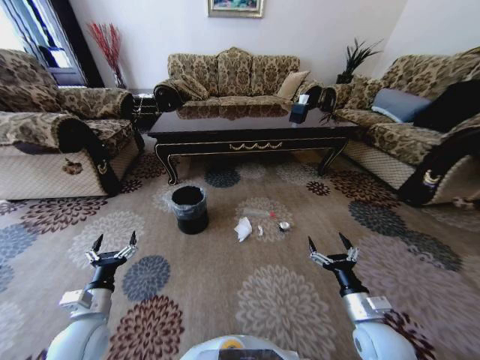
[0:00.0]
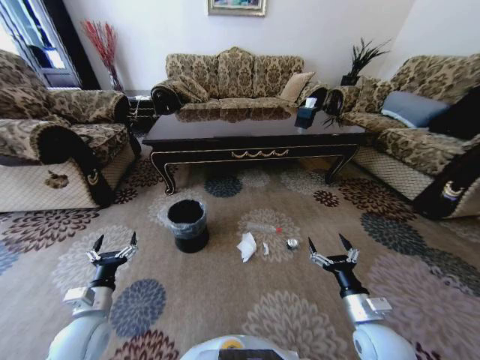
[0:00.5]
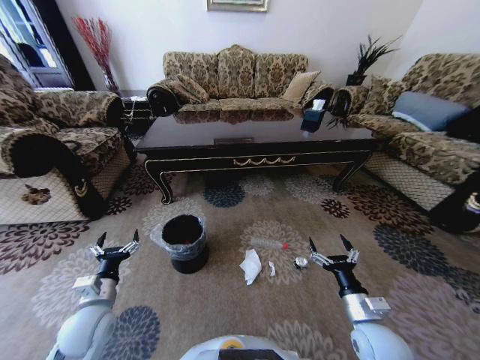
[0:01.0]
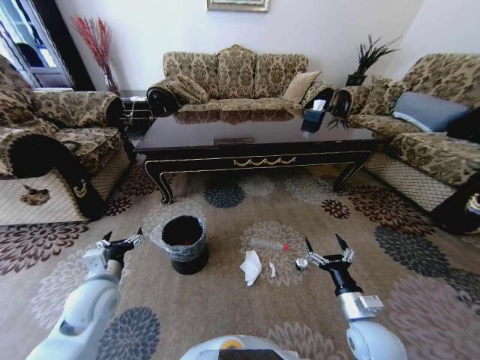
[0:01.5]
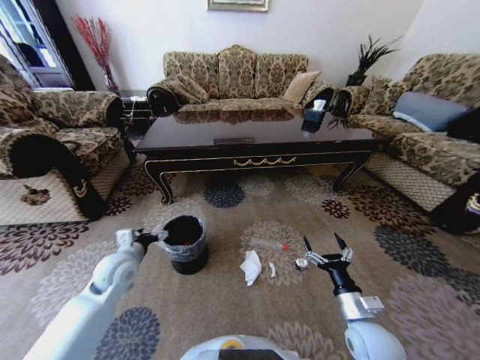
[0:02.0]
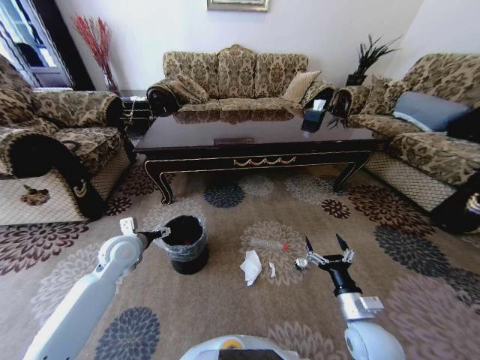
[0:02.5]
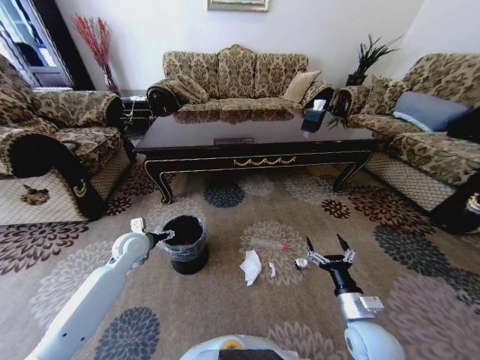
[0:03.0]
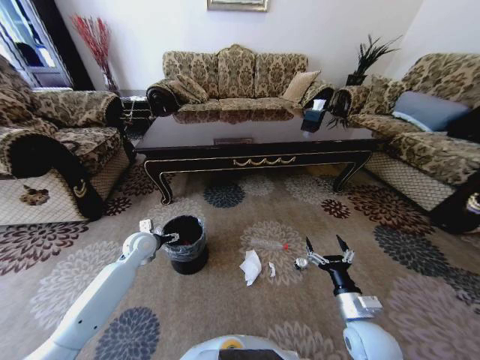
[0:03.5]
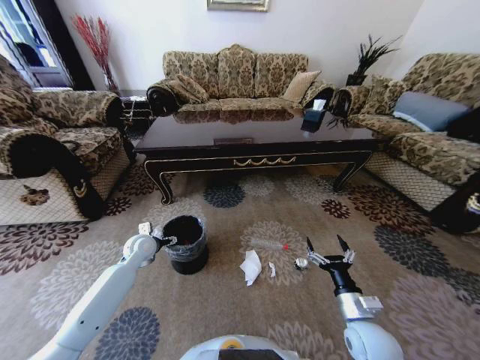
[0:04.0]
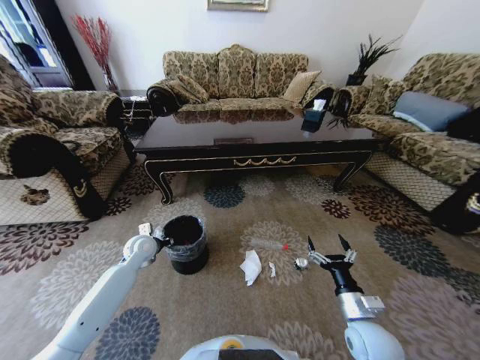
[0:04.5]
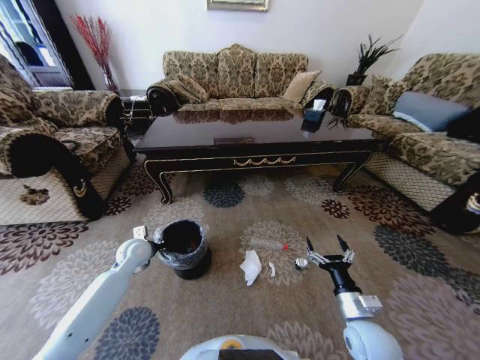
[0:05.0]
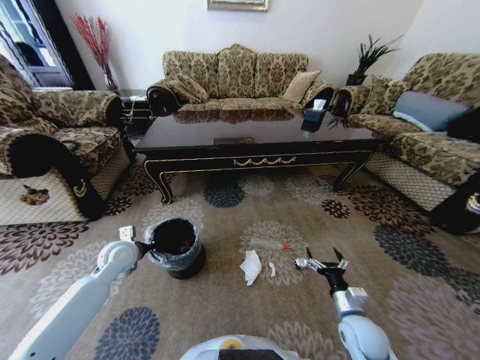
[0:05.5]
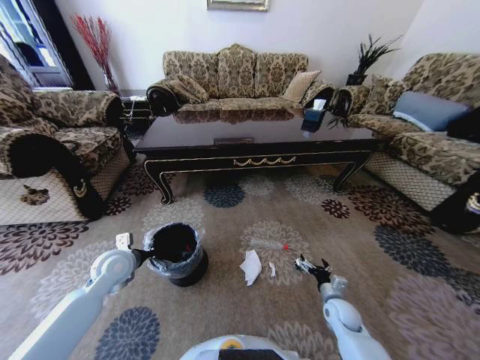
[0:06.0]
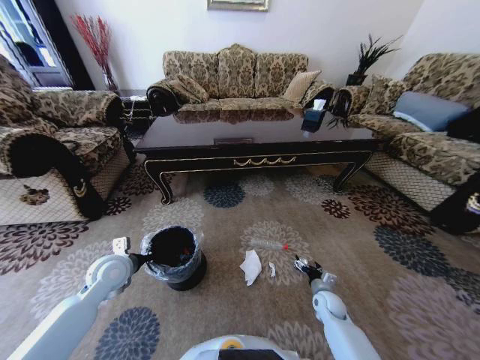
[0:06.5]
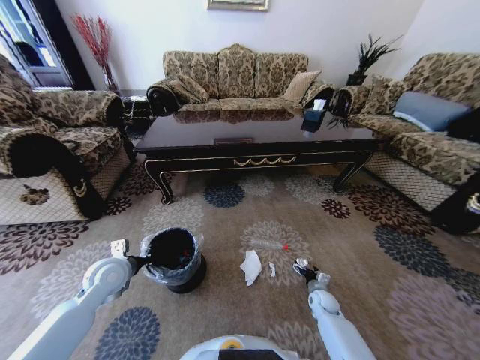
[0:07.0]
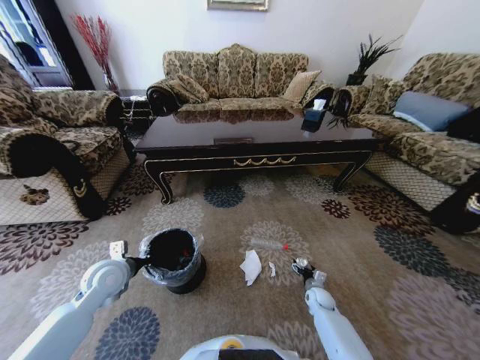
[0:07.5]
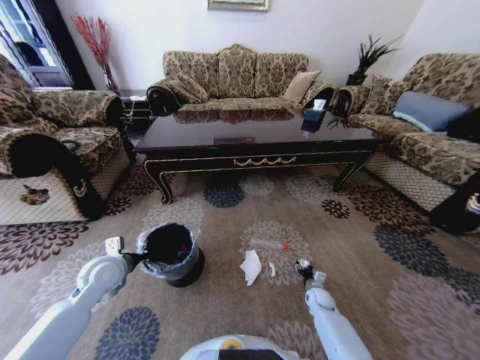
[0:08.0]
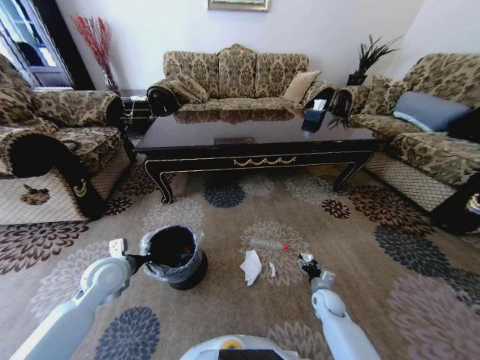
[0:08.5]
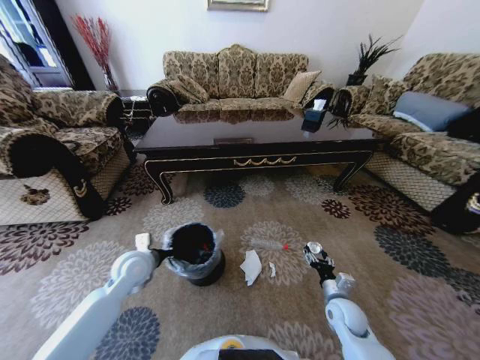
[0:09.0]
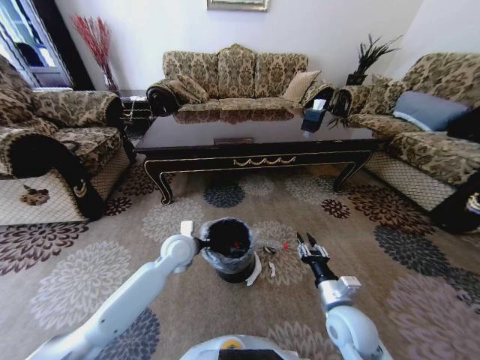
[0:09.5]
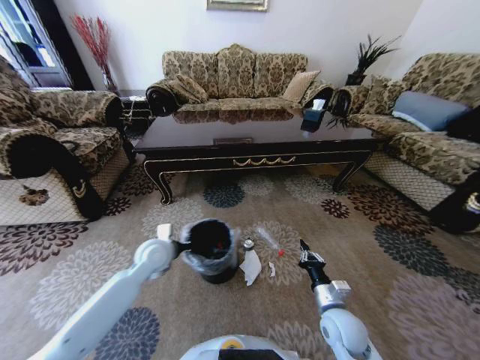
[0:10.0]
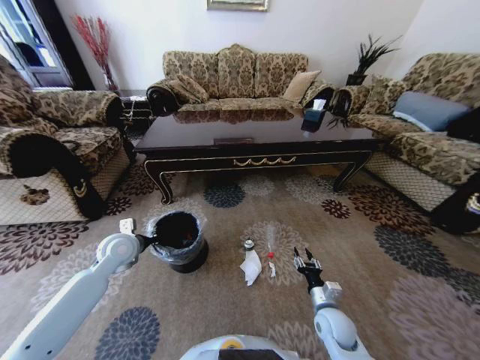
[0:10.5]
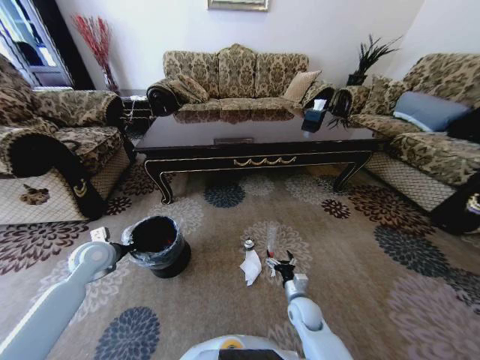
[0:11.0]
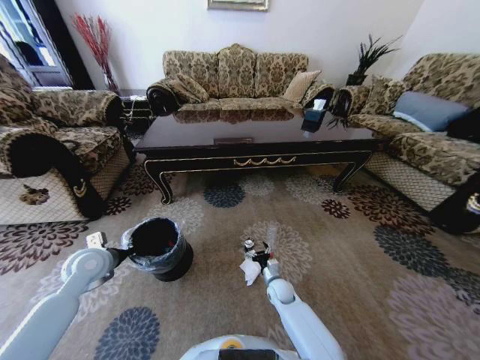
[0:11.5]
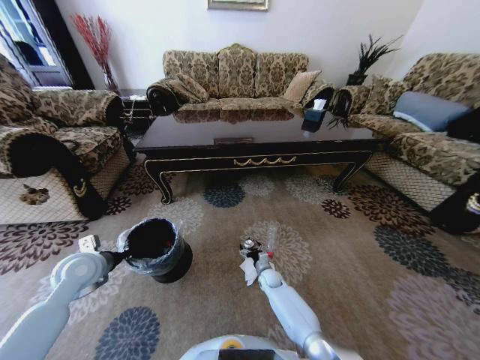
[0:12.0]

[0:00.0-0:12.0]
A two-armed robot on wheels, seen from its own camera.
Task of the whole recording: Move to the front of the table and pick up the trash from the floor, then place it into the trash bin.
0:00.0 to 0:02.0: The left gripper shifts some 15 cm forward.
0:02.0 to 0:04.0: The left gripper shifts roughly 10 cm forward and downward.
0:04.0 to 0:06.0: The right gripper is displaced downward and forward by roughly 15 cm, while the left gripper goes roughly 10 cm backward, and closes.
0:06.0 to 0:08.0: The right gripper is displaced downward and forward by about 10 cm, and closes.
0:08.0 to 0:10.0: The left gripper shifts roughly 15 cm to the right and forward. The right gripper heads upward and backward, covering roughly 25 cm, and closes its fingers.
0:10.0 to 0:12.0: The right gripper heads forward, downward and to the left, covering approximately 30 cm, and opens. The left gripper goes roughly 15 cm to the left.

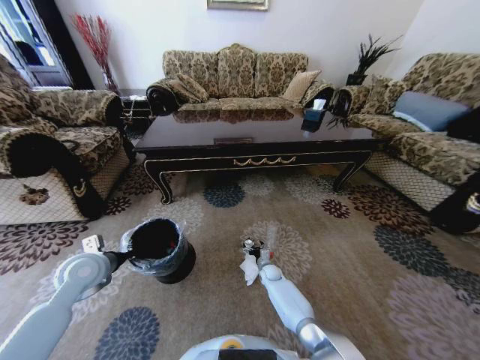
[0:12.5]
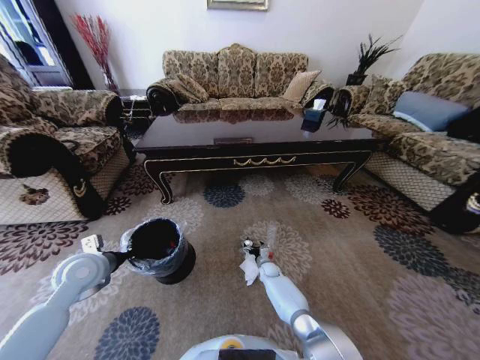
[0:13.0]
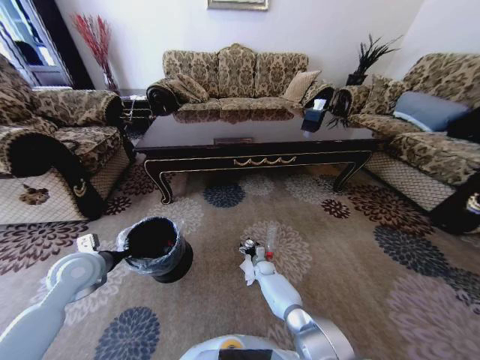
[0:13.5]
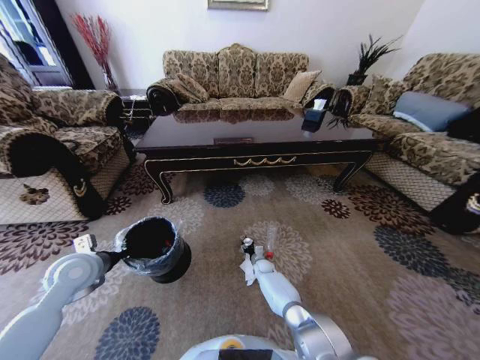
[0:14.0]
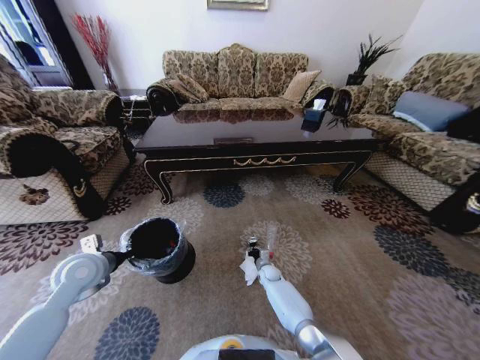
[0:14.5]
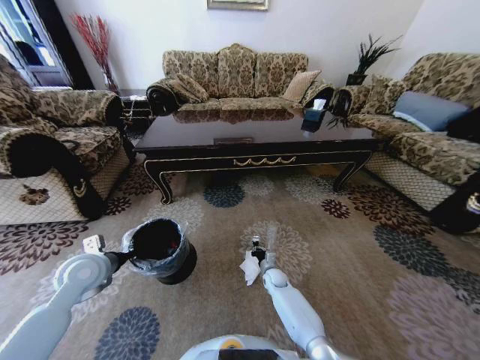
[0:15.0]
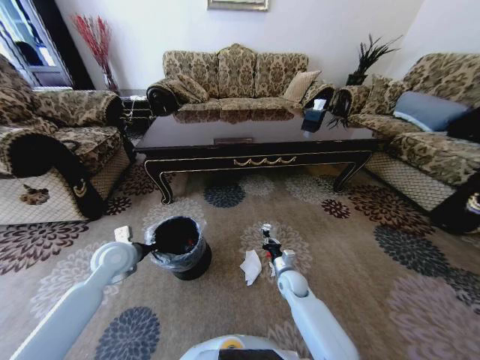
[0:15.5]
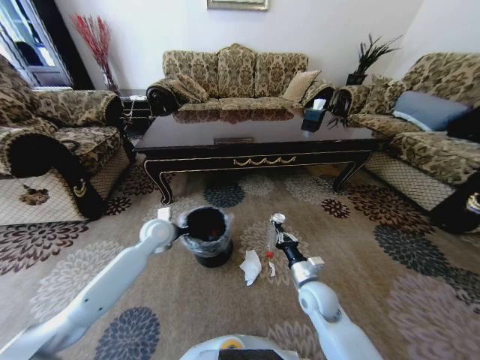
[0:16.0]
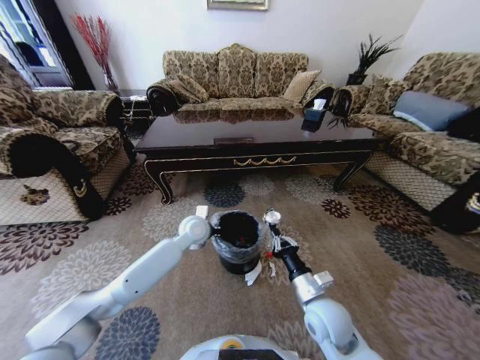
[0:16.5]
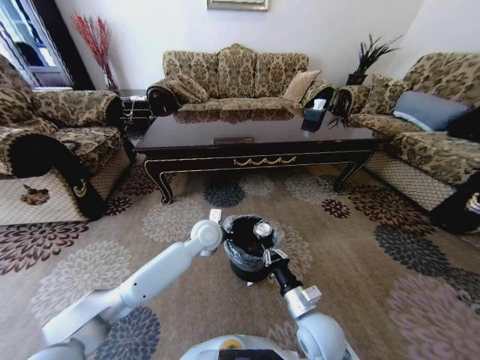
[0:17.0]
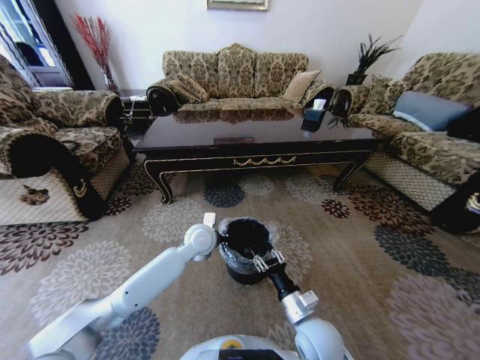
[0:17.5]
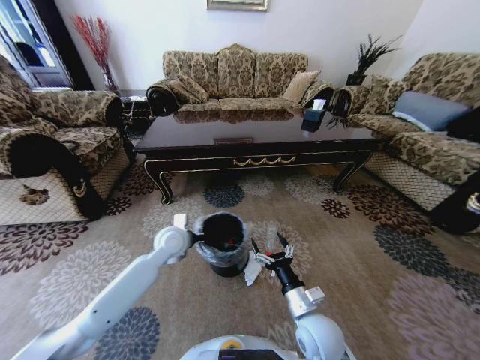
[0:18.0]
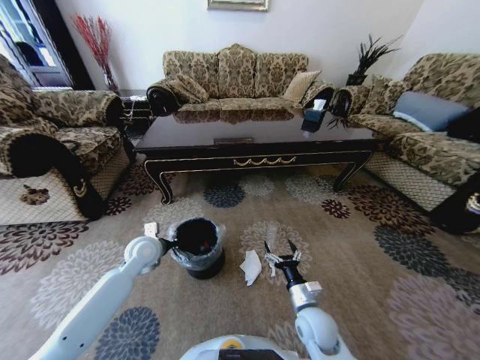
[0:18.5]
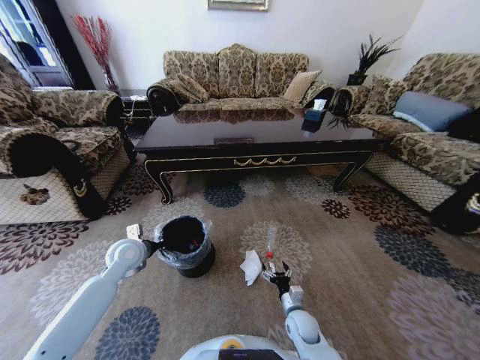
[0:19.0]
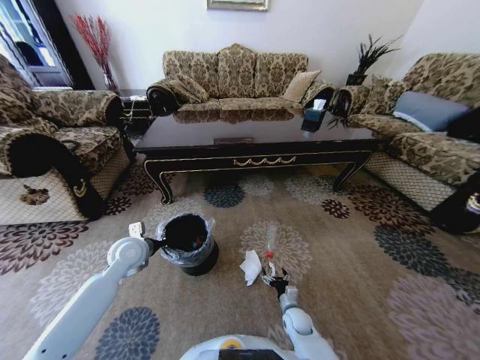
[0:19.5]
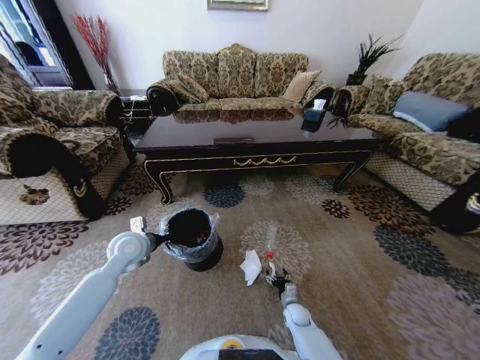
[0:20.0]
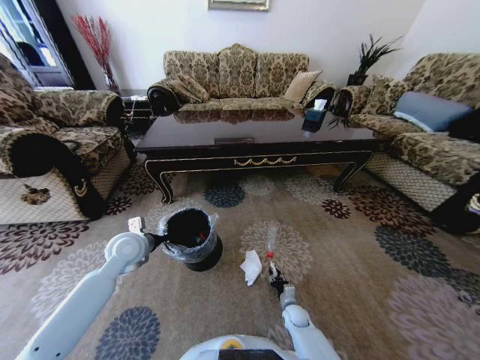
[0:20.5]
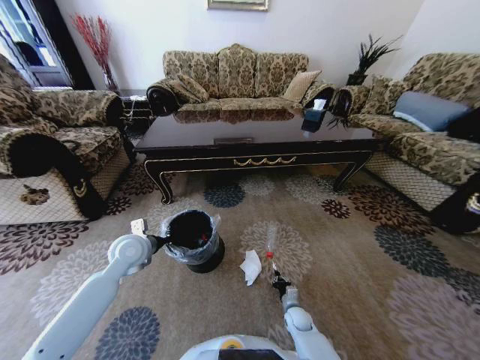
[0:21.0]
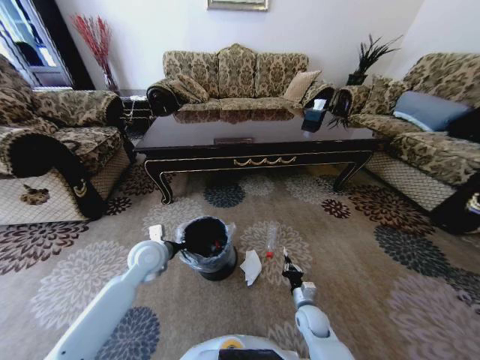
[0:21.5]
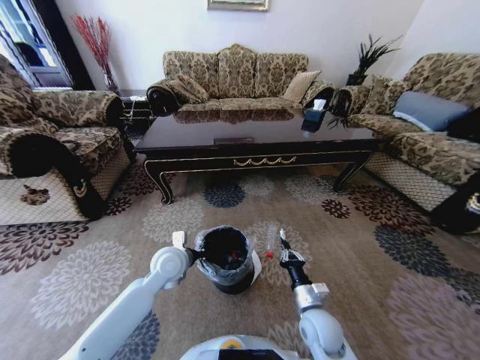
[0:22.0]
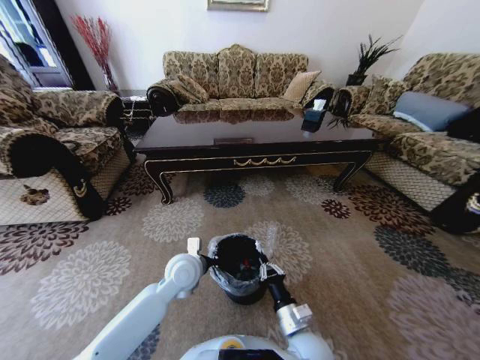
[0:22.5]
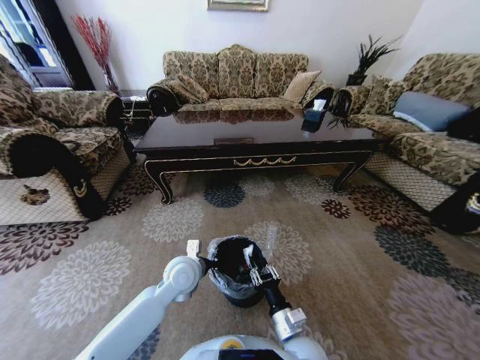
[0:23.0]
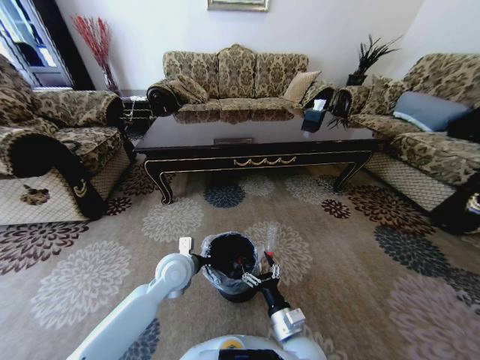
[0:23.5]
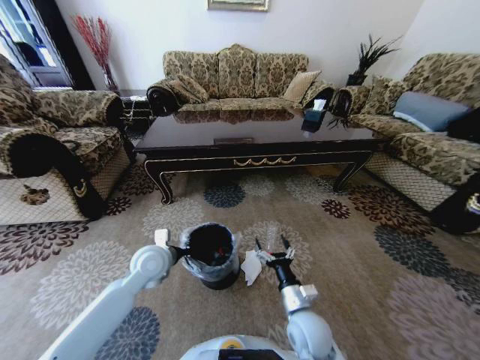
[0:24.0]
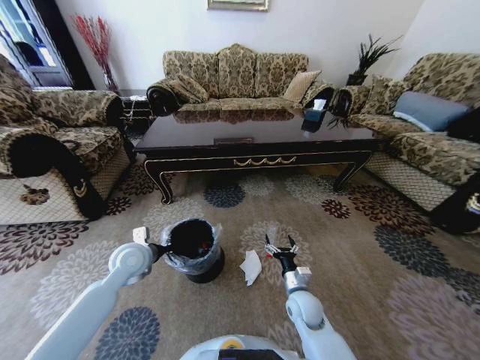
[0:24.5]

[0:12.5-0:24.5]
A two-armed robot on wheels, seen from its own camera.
Task of the whole recording: Move to the front of the table and pick up the trash from the floor, then place it into the trash bin.
0:12.5 to 0:14.5: The right gripper closes its fingers.
0:14.5 to 0:16.5: The left gripper shifts approximately 30 cm to the right and forward. The right gripper heads upward and backward, covering roughly 35 cm.
0:16.5 to 0:18.5: The left gripper shifts about 15 cm to the left, while the right gripper is displaced downward by approximately 10 cm, and opens.
0:18.5 to 0:20.5: The right gripper shifts roughly 20 cm downward, and closes its fingers.
0:20.5 to 0:22.5: The right gripper travels upward and backward by roughly 25 cm. The left gripper is displaced to the right by some 15 cm.
0:22.5 to 0:24.5: The left gripper shifts some 15 cm to the left; the right gripper goes approximately 10 cm forward, and opens.

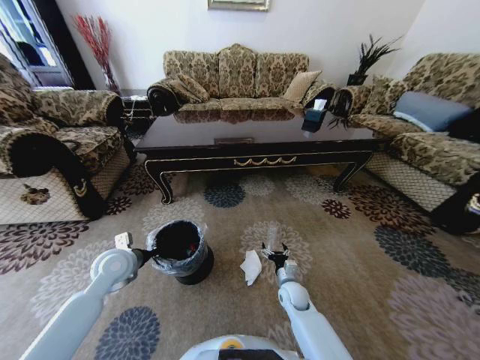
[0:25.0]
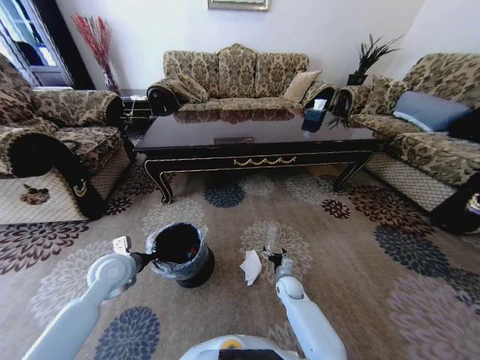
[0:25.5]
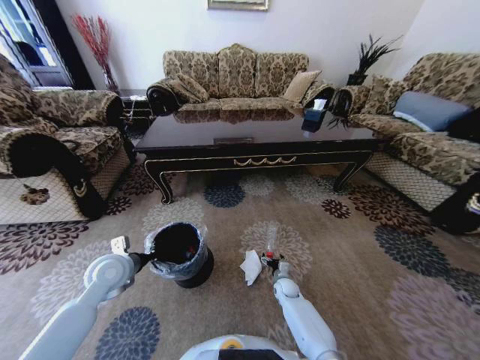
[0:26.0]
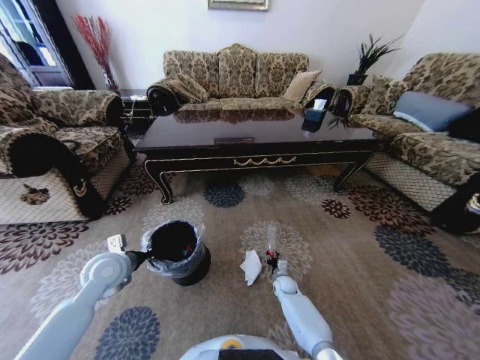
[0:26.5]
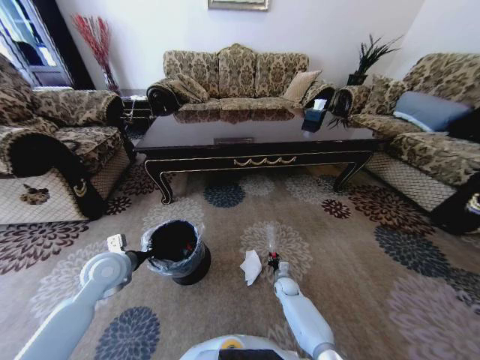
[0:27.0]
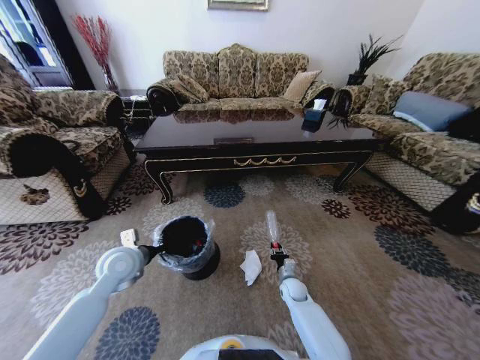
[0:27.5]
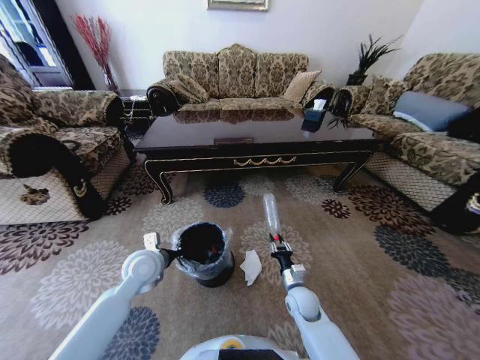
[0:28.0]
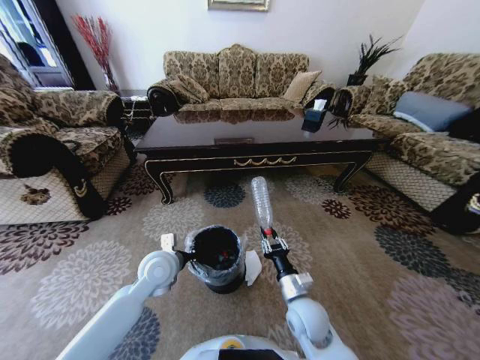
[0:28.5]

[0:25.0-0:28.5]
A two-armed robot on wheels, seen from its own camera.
Task of the whole recording: Move to the front of the table and pick up the trash from the floor, then place it into the trash bin.
0:25.0 to 0:27.0: The right gripper is displaced downward and forward by roughly 10 cm, and closes.
0:27.0 to 0:28.5: The right gripper goes approximately 30 cm upward and backward. The left gripper goes about 15 cm to the right.
